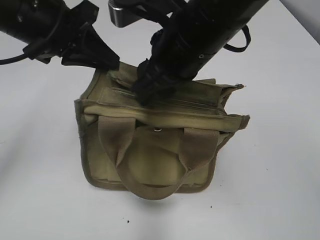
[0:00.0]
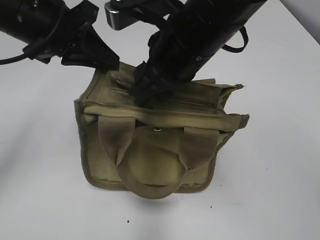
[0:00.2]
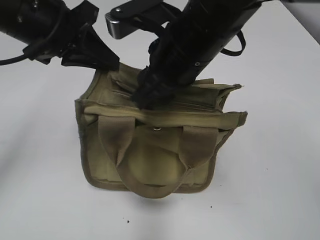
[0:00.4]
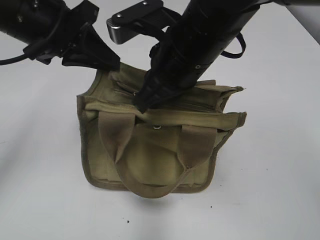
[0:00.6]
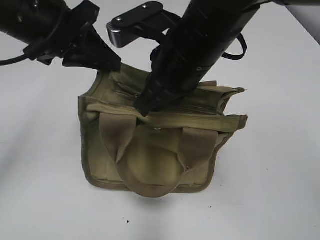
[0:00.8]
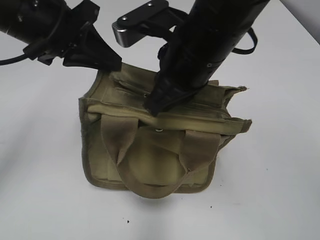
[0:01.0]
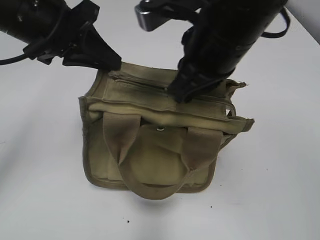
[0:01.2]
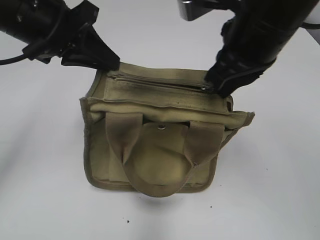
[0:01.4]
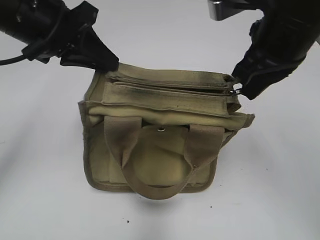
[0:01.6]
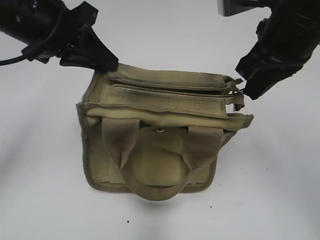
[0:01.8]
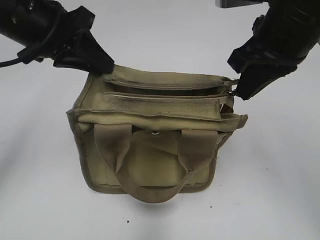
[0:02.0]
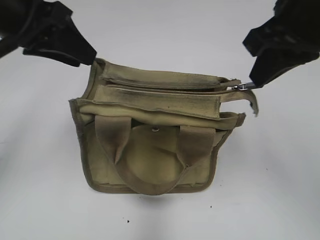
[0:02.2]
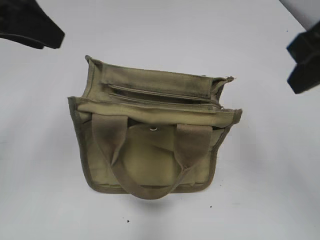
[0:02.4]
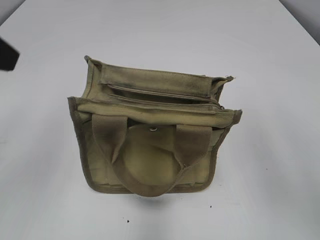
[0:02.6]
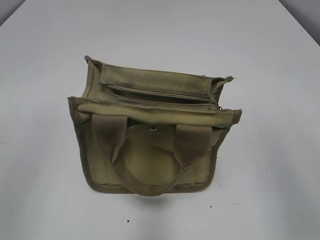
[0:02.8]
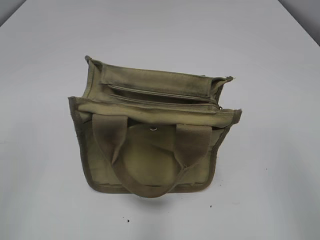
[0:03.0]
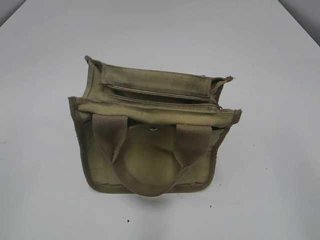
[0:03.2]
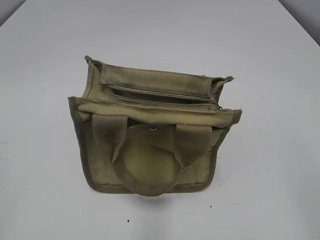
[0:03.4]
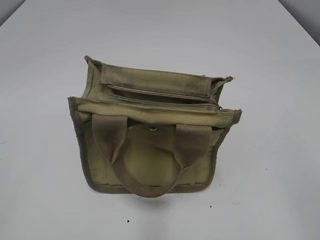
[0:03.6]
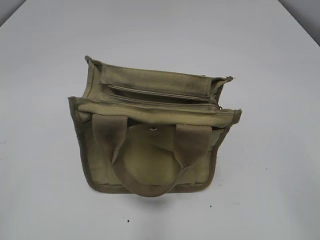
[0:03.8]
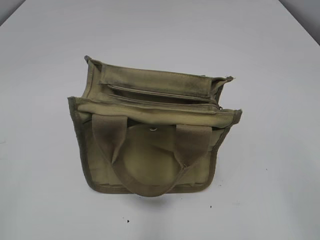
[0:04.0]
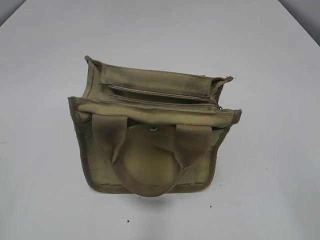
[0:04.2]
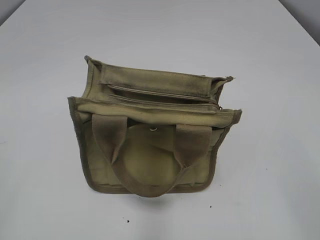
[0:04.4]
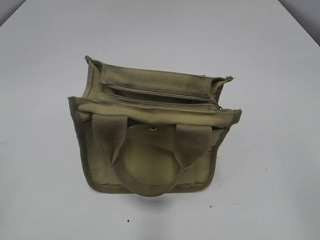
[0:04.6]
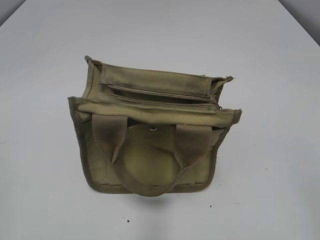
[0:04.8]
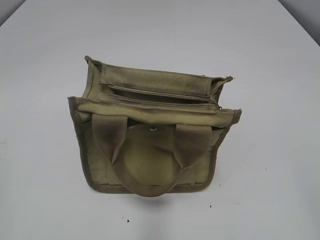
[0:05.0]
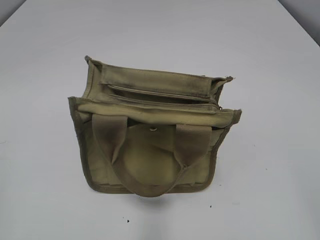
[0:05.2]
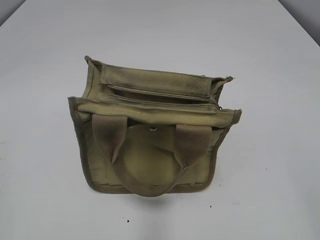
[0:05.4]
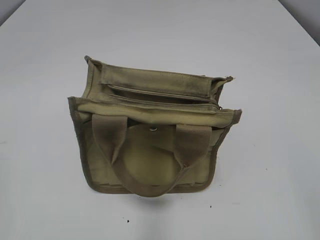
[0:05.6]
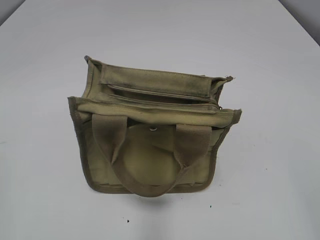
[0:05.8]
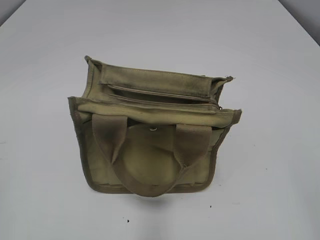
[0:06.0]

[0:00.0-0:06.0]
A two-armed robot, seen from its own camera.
0:00.0 to 0:01.6: The right gripper heads to the right, covering some 10 cm, and closes its fingers.
0:01.6 to 0:03.0: The left gripper is displaced backward and to the left by about 25 cm, and opens up; the right gripper travels backward and to the right by some 25 cm.

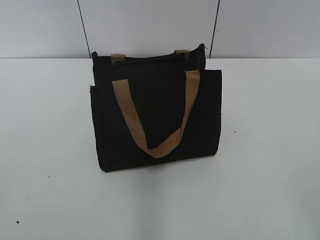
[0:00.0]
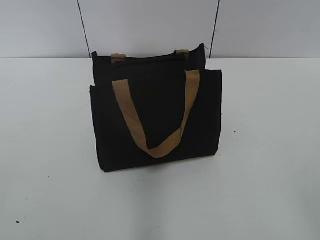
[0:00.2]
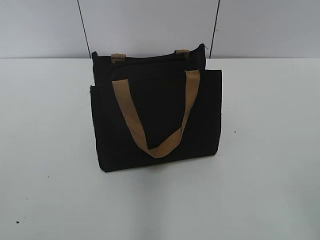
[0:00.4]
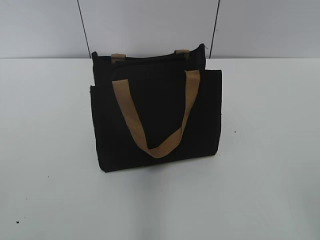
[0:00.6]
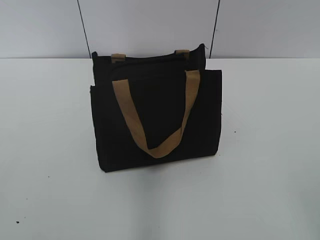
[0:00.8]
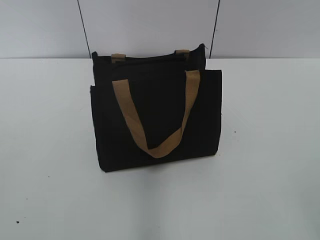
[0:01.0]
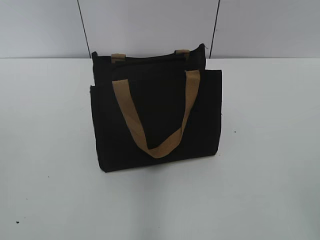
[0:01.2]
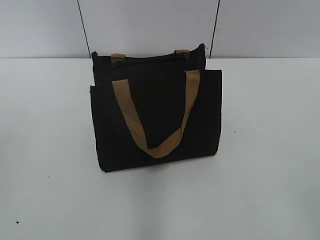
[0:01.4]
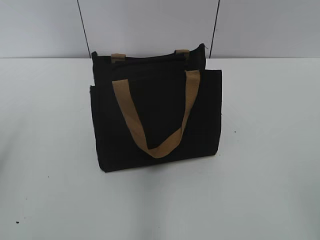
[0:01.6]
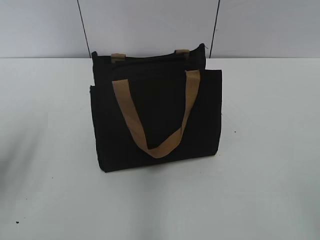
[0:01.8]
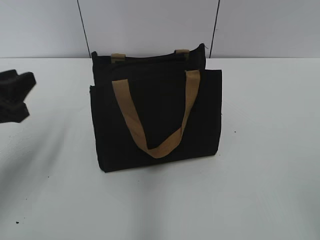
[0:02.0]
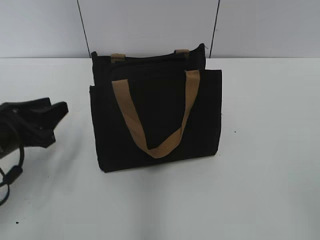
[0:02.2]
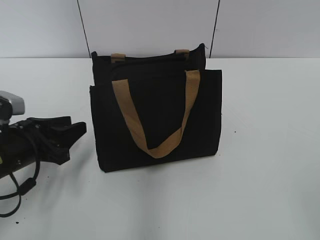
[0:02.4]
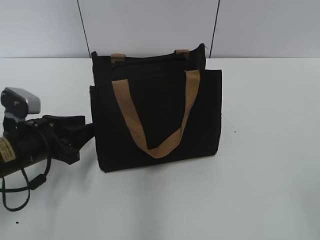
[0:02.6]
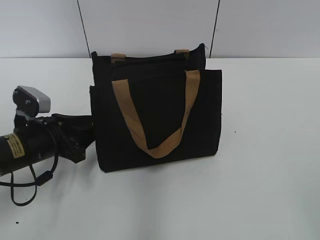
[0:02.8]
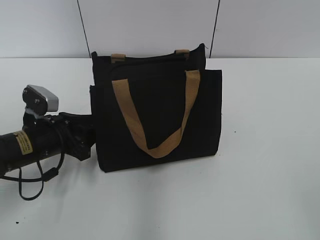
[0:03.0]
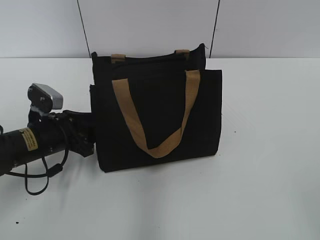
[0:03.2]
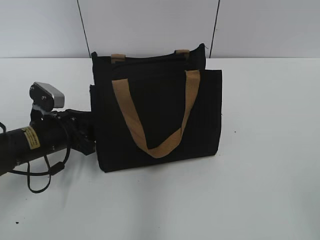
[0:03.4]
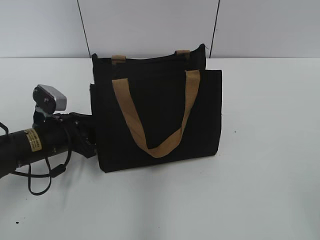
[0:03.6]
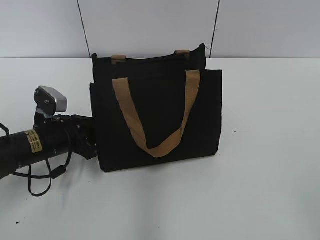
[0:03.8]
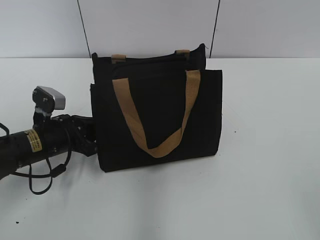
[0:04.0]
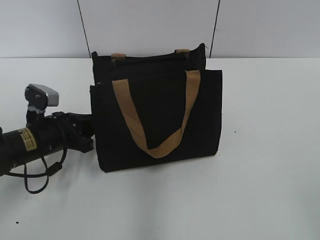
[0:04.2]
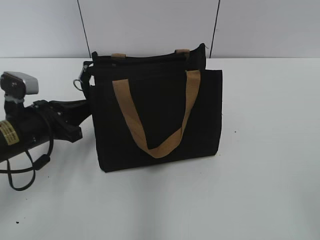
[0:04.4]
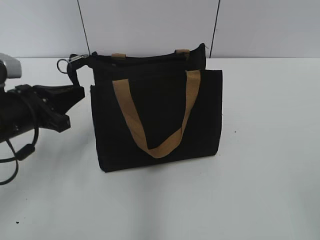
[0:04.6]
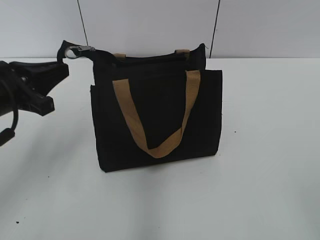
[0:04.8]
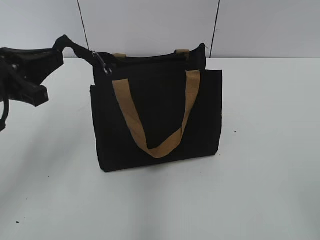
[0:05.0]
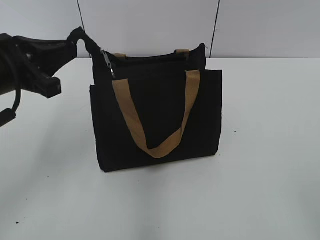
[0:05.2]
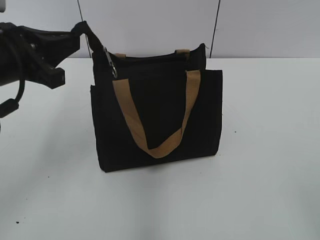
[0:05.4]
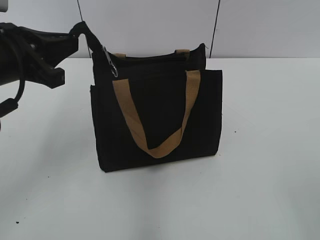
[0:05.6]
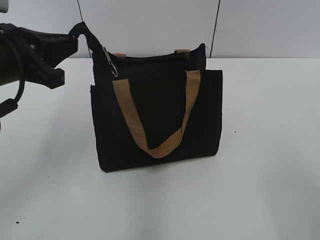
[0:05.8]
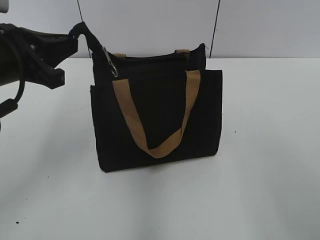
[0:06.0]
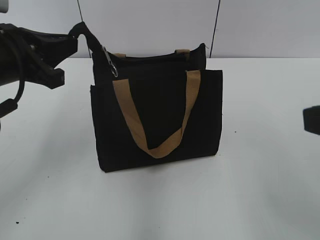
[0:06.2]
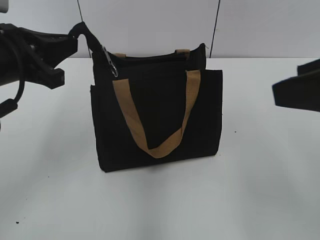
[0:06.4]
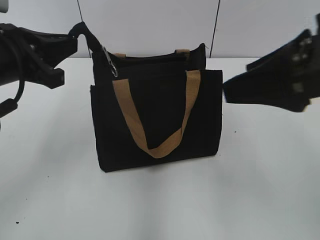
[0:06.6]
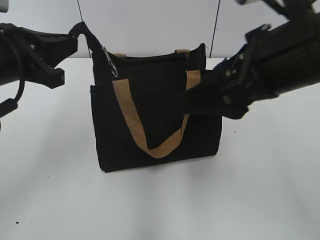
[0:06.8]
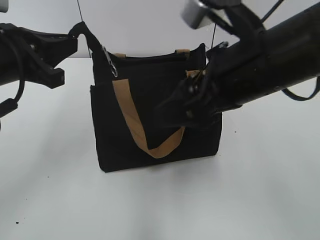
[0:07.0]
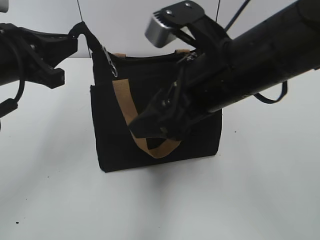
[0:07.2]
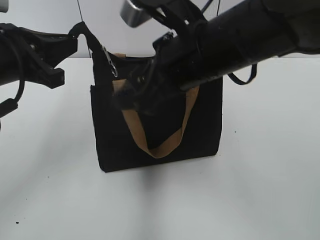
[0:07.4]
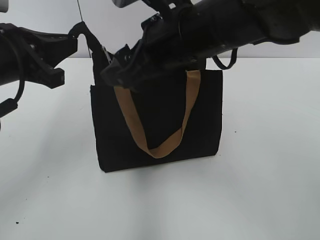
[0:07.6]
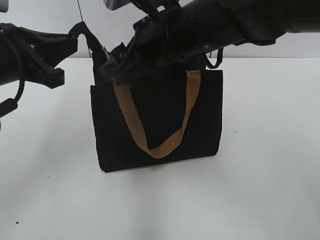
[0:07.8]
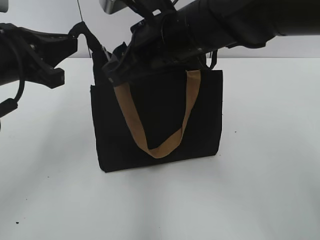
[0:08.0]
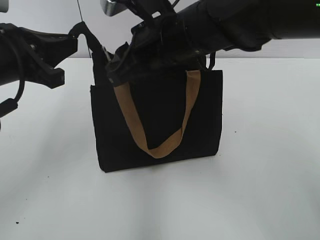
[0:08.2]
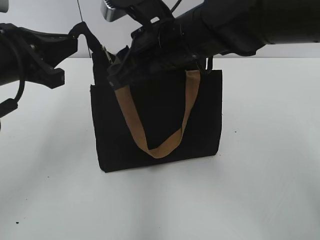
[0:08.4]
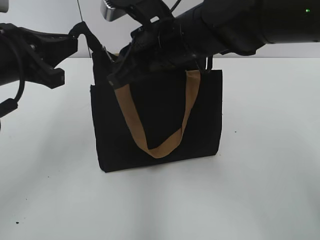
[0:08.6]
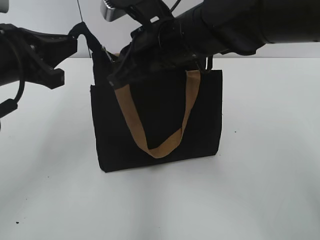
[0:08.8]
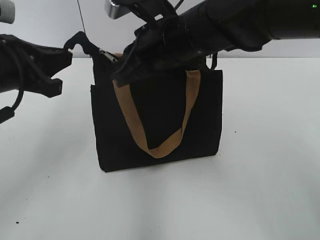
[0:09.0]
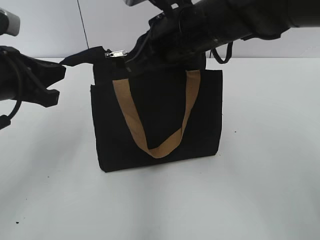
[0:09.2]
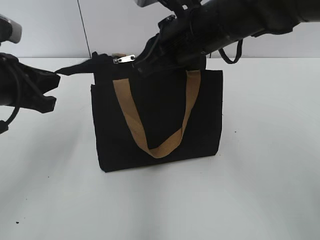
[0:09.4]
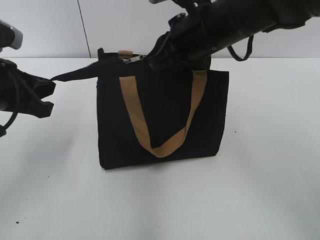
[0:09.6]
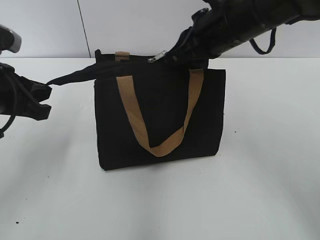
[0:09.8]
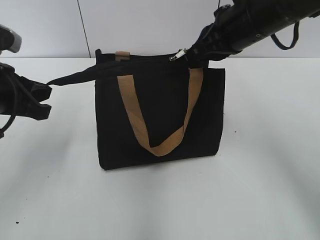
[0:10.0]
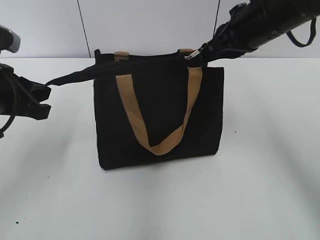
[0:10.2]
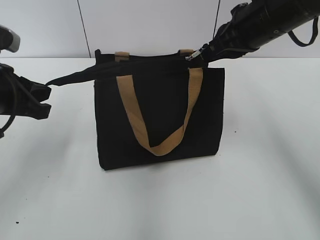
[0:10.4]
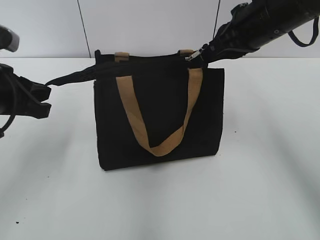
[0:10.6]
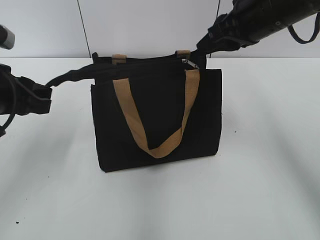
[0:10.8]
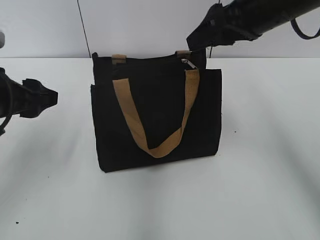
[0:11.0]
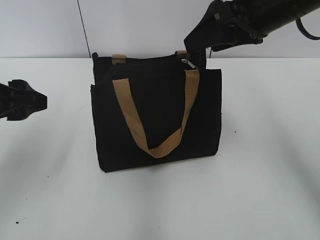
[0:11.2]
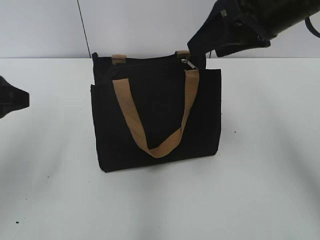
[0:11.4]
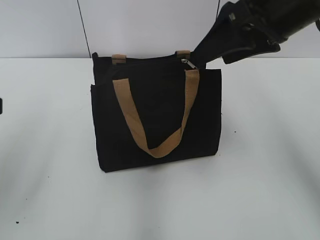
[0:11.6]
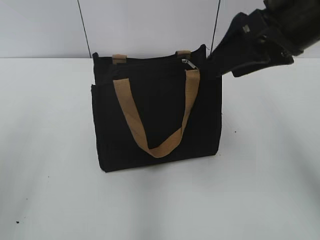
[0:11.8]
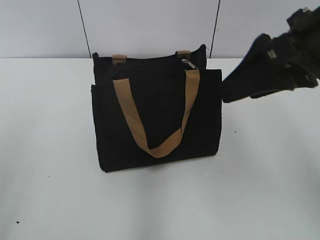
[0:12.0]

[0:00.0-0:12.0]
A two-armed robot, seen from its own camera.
Step, 0:00.0 to 0:10.6: Zip up the bag with your right hand.
0:01.6 to 0:03.0: The left gripper shifts roughly 25 cm downward, forward and to the right.
0:03.0 to 0:04.4: The left gripper closes.
0:04.4 to 0:06.0: The right gripper moves forward, some 5 cm. The left gripper moves upward, roughly 15 cm.
0:06.0 to 0:07.6: The right gripper shifts about 30 cm forward and to the left.
0:07.6 to 0:09.0: The right gripper shifts by roughly 5 cm, and closes up.
0:09.0 to 0:10.4: The right gripper travels to the right by some 15 cm.
0:10.4 to 0:12.0: Both grippers travel together backward and upward, some 15 cm. The left gripper opens up; the right gripper opens.

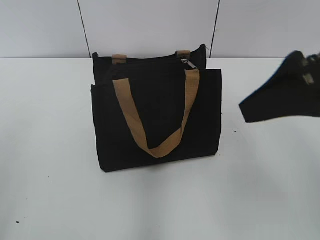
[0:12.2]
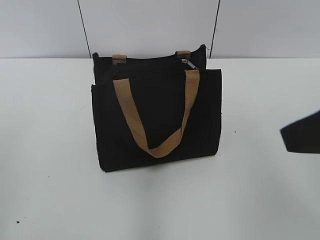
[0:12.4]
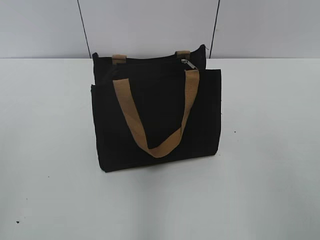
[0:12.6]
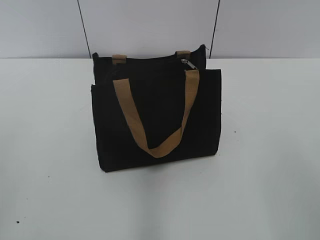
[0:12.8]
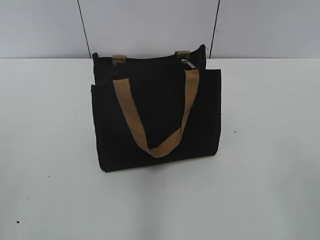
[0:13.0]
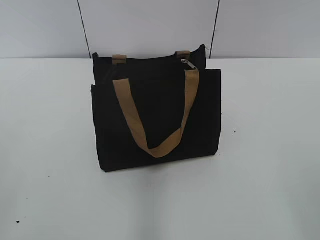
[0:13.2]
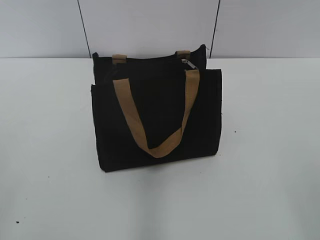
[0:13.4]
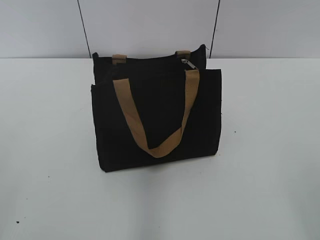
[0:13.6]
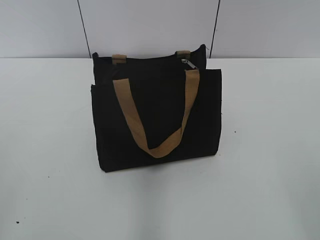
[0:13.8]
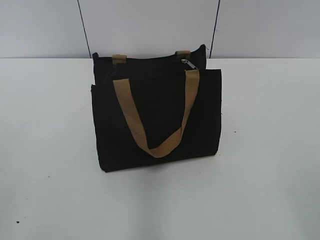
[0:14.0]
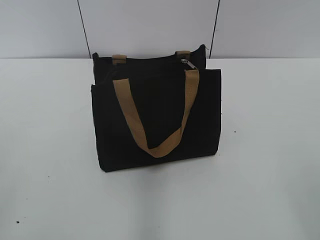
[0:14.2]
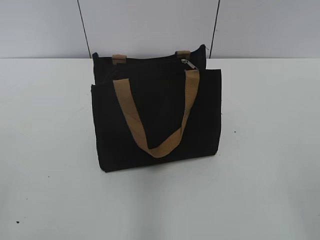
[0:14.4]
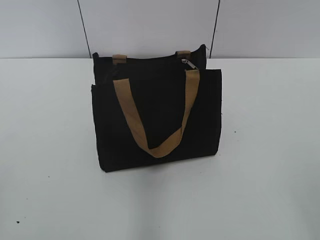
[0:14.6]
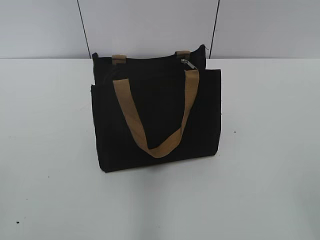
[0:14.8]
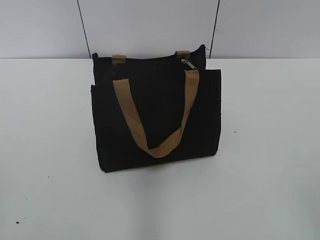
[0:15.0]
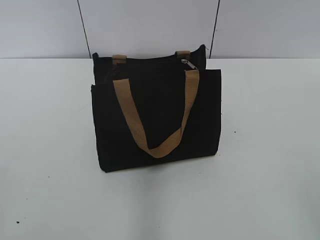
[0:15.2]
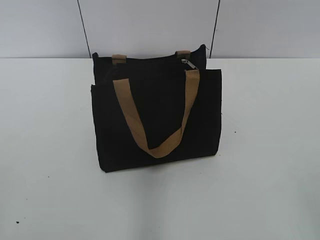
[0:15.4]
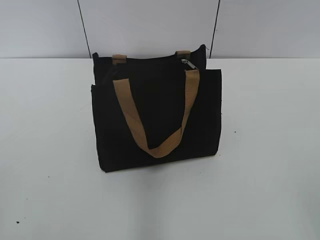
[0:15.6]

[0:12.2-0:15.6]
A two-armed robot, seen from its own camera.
0:12.2 to 0:13.8: The right gripper moves backward and to the right, approximately 20 cm.
